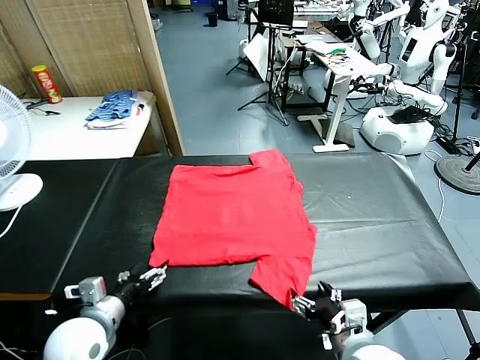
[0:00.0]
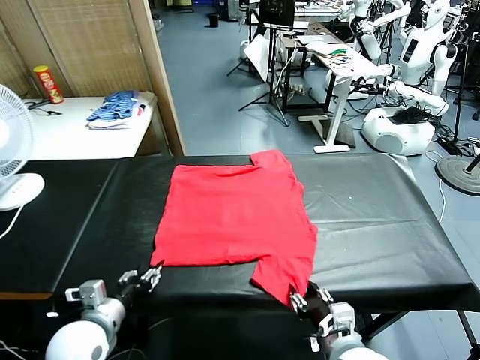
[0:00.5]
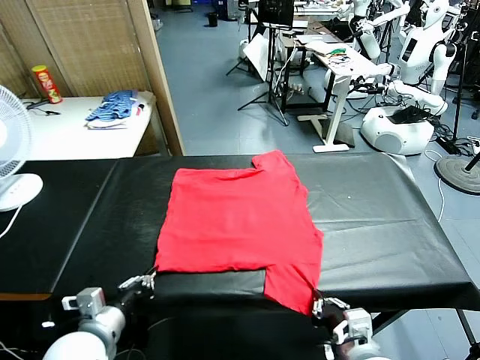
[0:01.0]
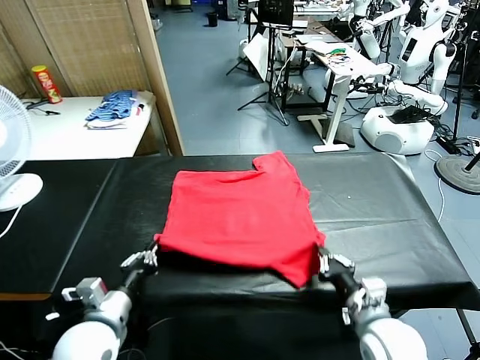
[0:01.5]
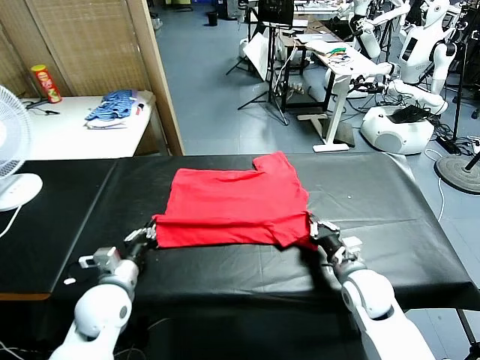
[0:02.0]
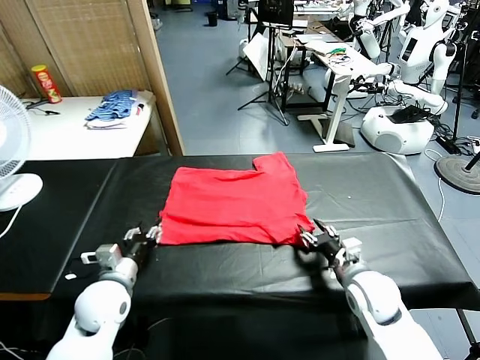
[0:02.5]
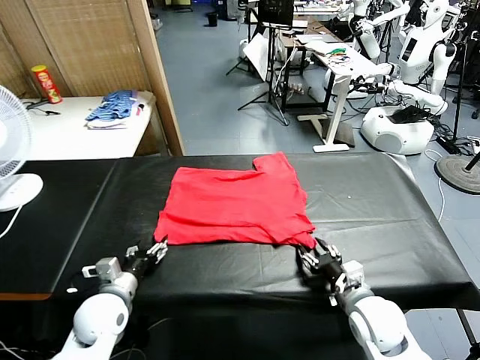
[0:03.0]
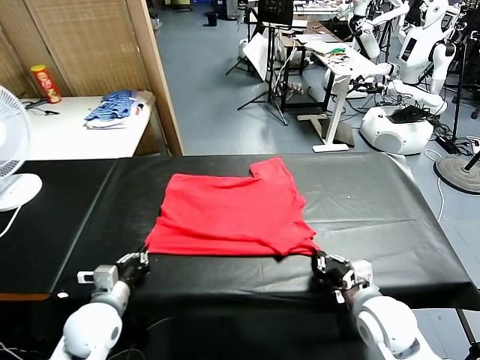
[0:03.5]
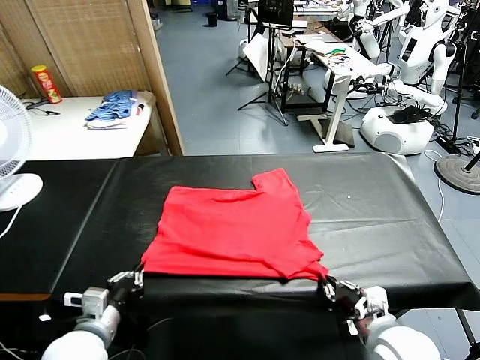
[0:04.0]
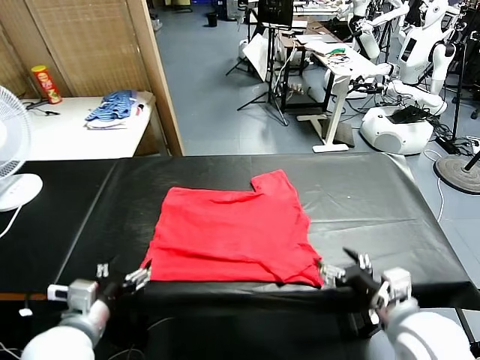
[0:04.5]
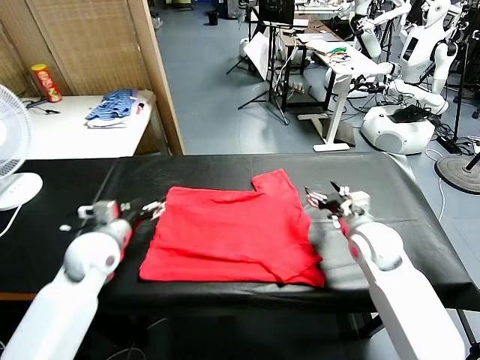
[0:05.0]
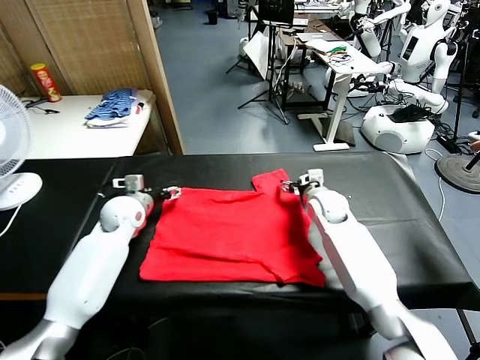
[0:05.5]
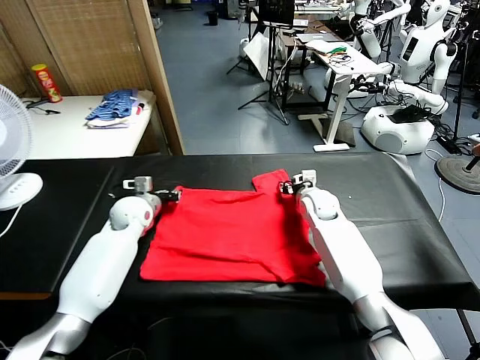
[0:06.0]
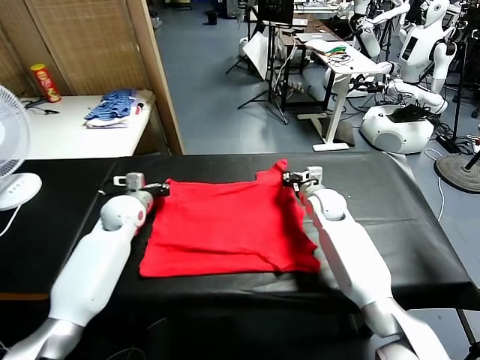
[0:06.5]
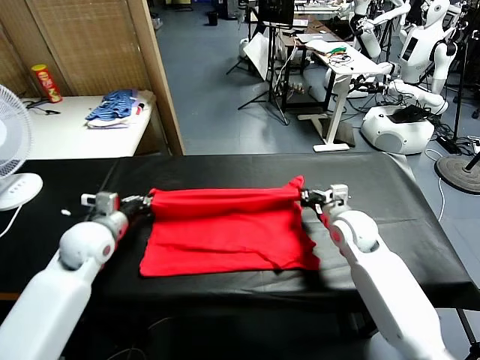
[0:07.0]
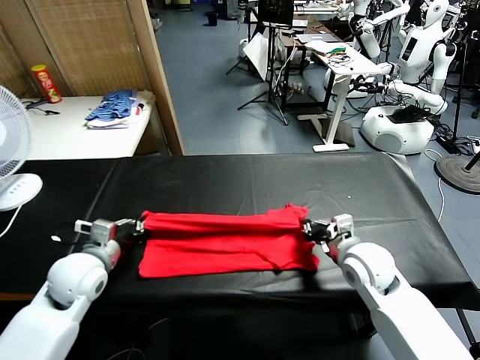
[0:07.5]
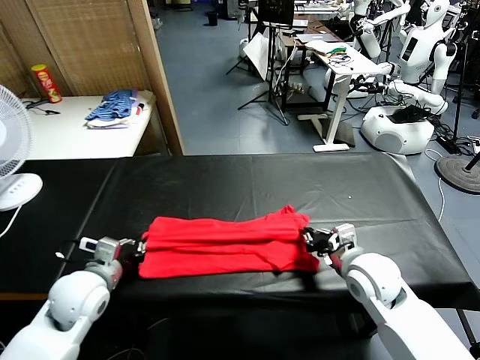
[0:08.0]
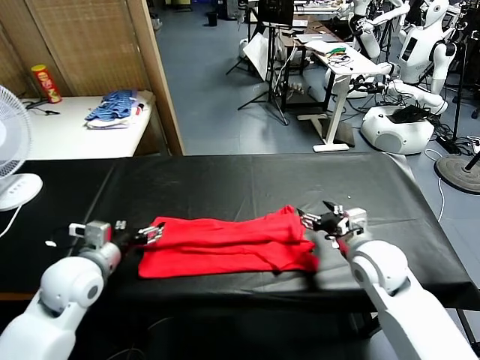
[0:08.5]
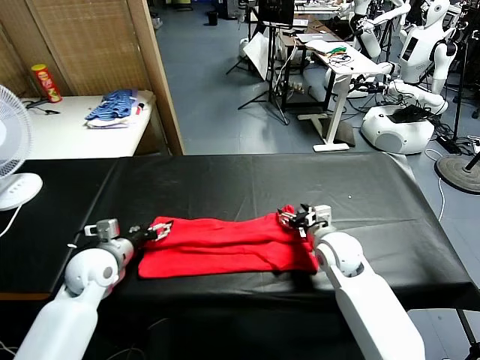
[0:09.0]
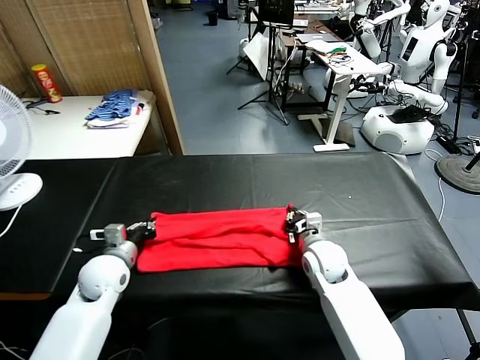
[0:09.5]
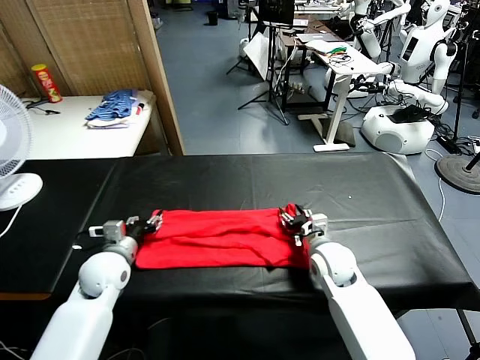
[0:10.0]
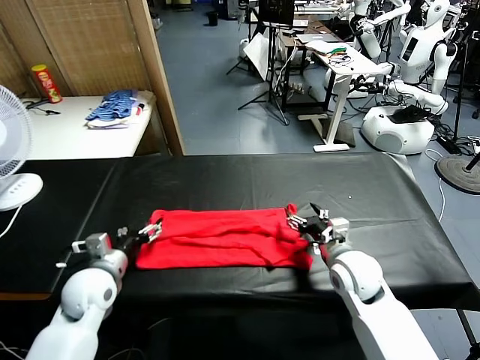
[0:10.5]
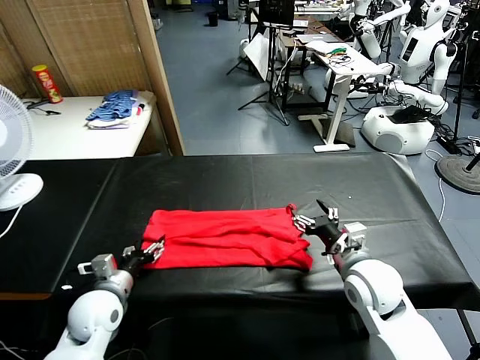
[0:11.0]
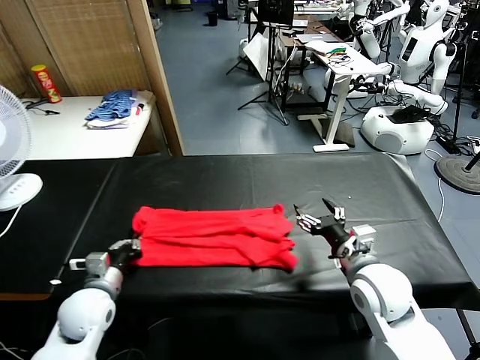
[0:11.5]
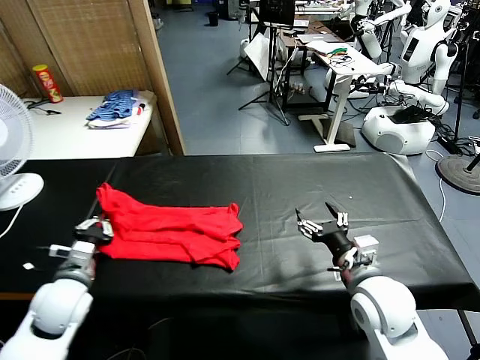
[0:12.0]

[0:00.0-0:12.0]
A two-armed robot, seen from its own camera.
Task of the whole recording: fold and organize the clothes.
Step, 0:00.0 to 0:00.5: use both grippers simultaneously to clamp the lower edge of the clothing fabric.
Step, 0:01.0 to 0:02.5: use both grippers to drag the lower edge of the fabric forward and fold it over the upper edge.
Step, 0:03.0 to 0:04.0: Drag the clothes downward with both gripper.
Step, 0:04.5 to 0:06.0: use both grippers simultaneously to clamp the upper edge of the clothing fabric.
Step, 0:06.5 to 0:08.0: use both grippers to drag the upper edge of the fabric backward and fold it over the lower edge.
Step, 0:08.5 to 0:11.0: use the left gripper to clamp the left edge of the fabric.
0:02.0 to 0:04.0: The left gripper travels backward by roughly 10 cm, and opens and closes again; the right gripper moves backward and upward, about 20 cm, and opens its fingers.
0:04.0 to 0:06.0: Both grippers move forward, roughly 35 cm. The right gripper opens, then closes once more, while the left gripper opens and closes again.
0:06.0 to 0:08.0: The grippers both shift backward by about 20 cm.
0:08.0 to 0:10.0: The right gripper is displaced downward and forward by approximately 10 cm, and opens. The left gripper heads forward, covering about 5 cm, and opens up.
0:10.0 to 0:12.0: The right gripper travels backward and upward by about 15 cm; the left gripper shifts approximately 10 cm backward, and closes.

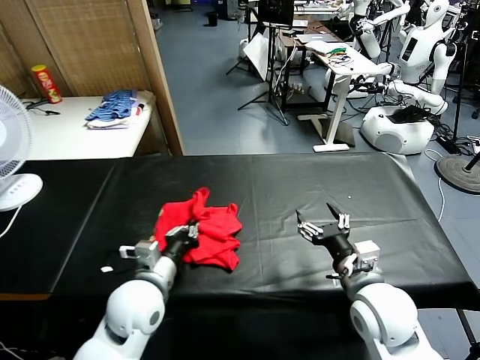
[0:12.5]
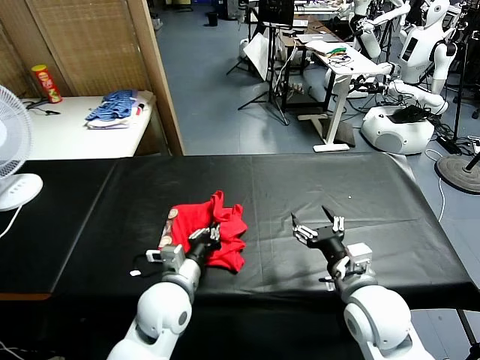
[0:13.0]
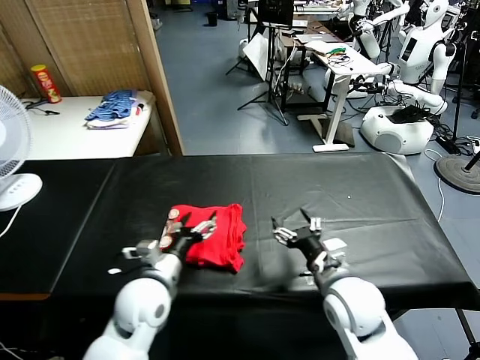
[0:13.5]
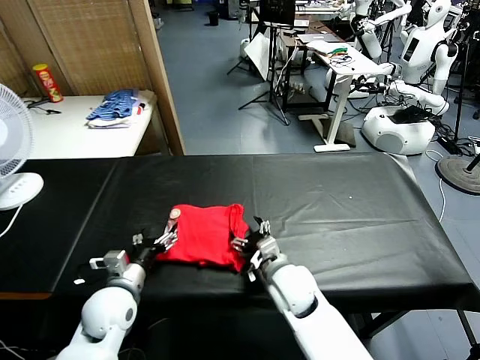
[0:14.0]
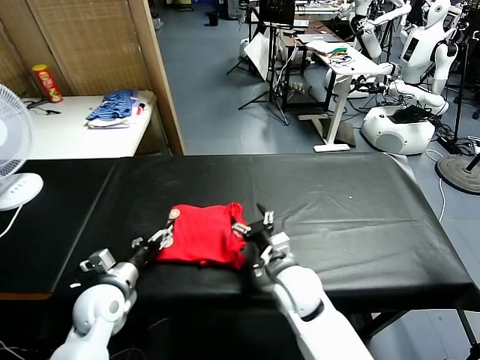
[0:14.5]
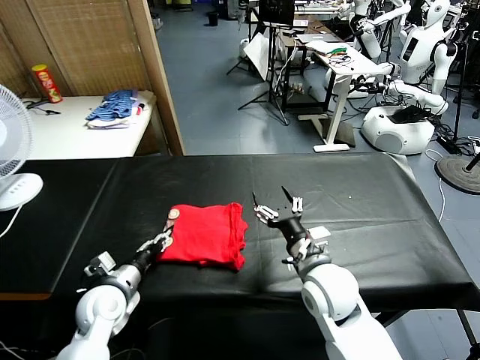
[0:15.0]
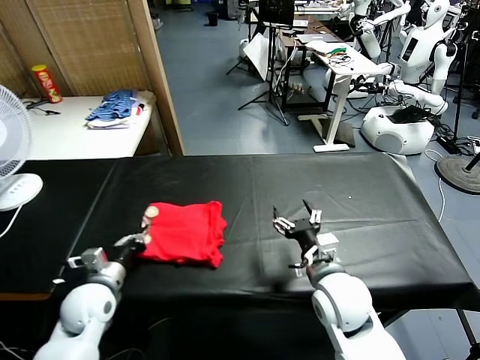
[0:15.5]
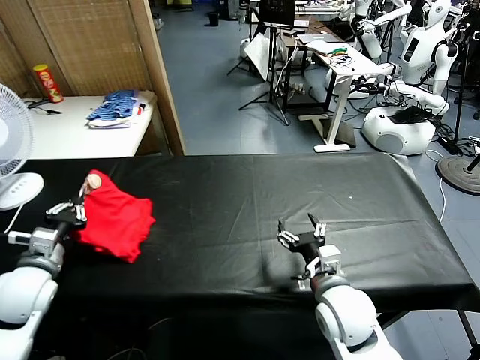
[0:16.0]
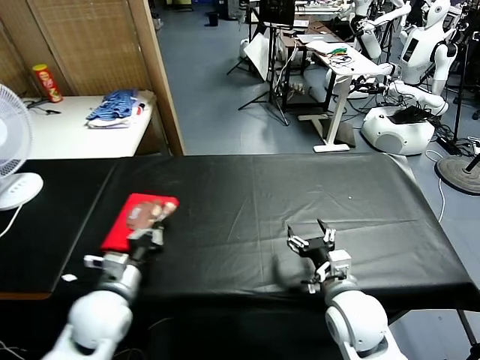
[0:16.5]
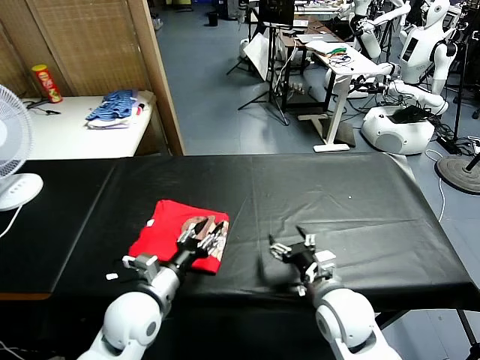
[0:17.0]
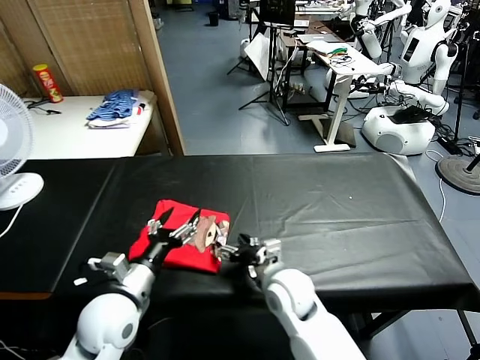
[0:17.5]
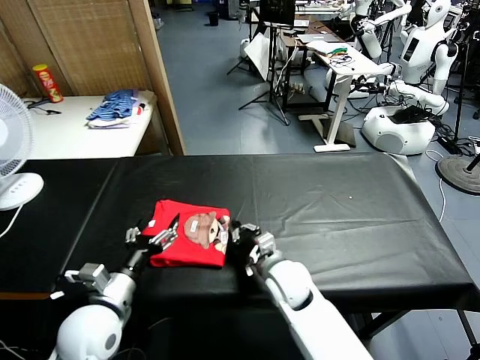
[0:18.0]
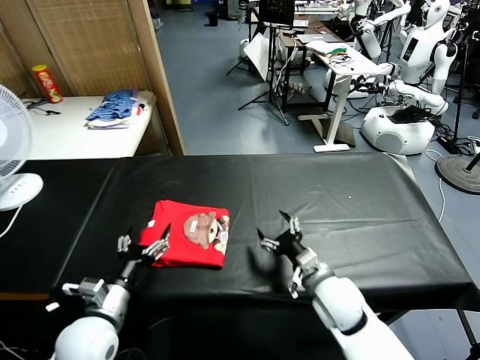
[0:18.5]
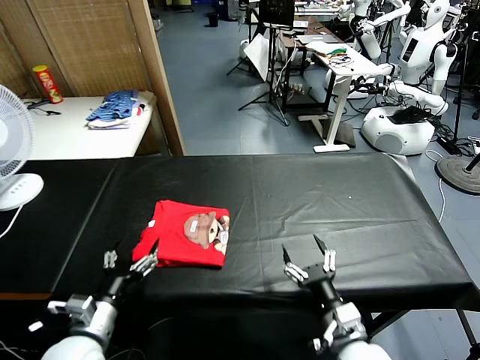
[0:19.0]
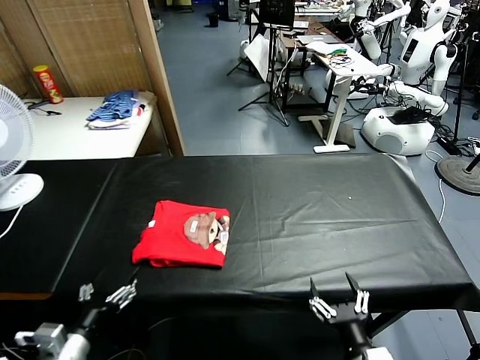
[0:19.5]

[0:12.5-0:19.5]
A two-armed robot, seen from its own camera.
Task of the whole recording: fold and organize the clothes.
Step, 0:13.5 to 0:17.0: Flip the folded clothes over with left gripper.
Step, 0:17.5 to 0:18.0: Drag the clothes to the center of the table.
0:12.5 to 0:14.5: The left gripper goes roughly 10 cm to the left and downward, and opens up, while the right gripper goes about 15 cm to the left, downward and forward.
0:14.5 to 0:16.0: The left gripper goes roughly 15 cm to the left and upward, and closes up. The right gripper moves to the right and backward, approximately 10 cm.
0:16.0 to 0:17.5: The right gripper goes about 10 cm to the left and forward, while the left gripper goes some 15 cm to the right, and opens its fingers.
0:17.5 to 0:19.5: The left gripper travels backward and to the left by approximately 15 cm. The right gripper is displaced backward and to the right by some 25 cm, and closes, then reopens.

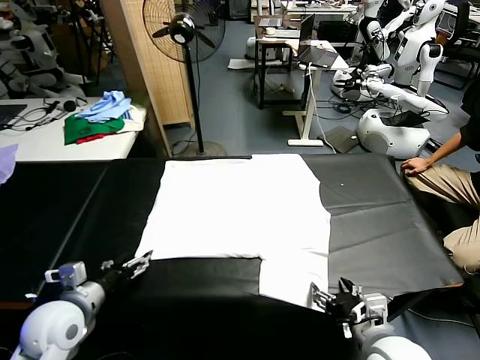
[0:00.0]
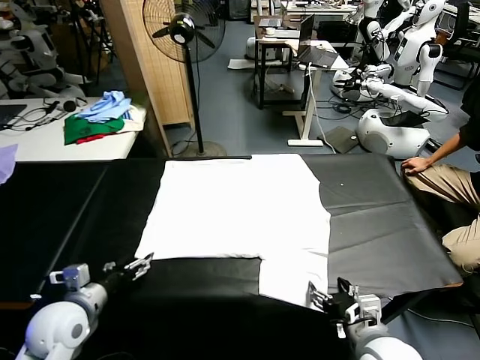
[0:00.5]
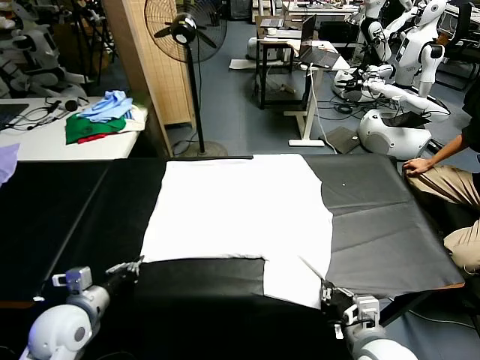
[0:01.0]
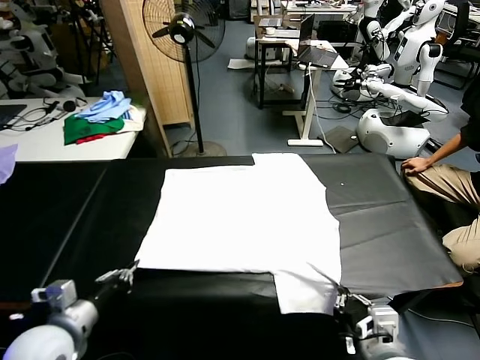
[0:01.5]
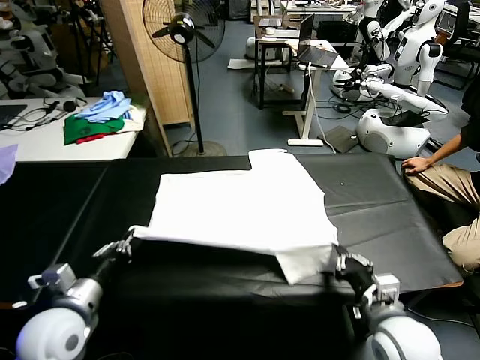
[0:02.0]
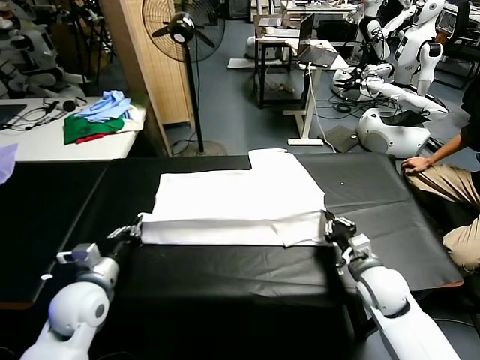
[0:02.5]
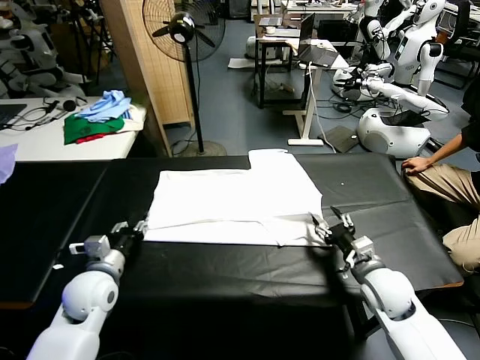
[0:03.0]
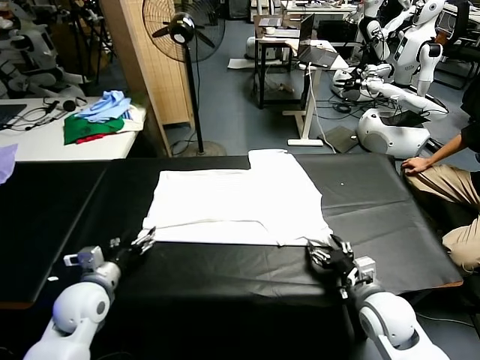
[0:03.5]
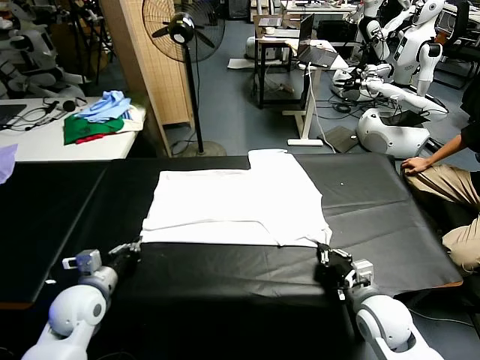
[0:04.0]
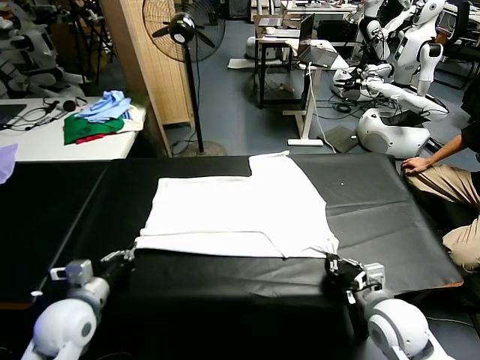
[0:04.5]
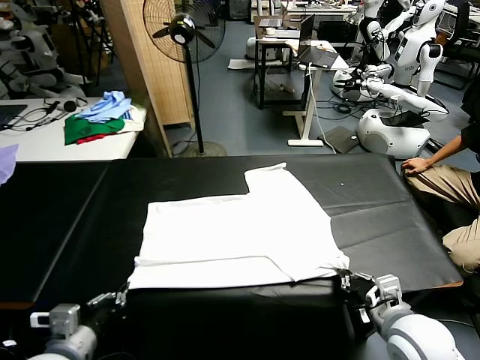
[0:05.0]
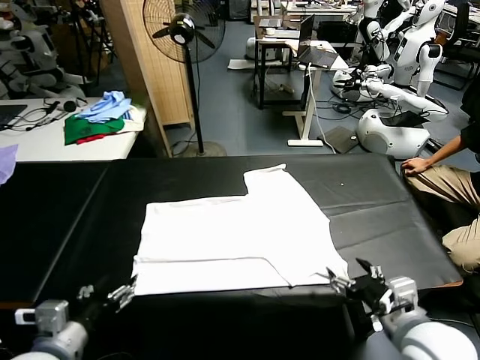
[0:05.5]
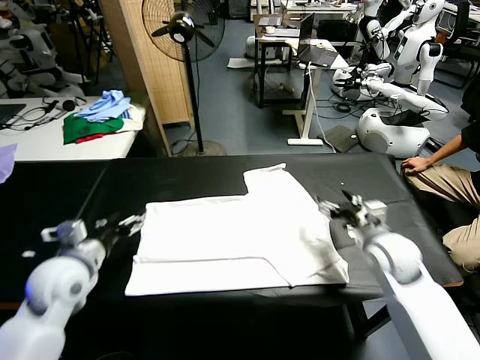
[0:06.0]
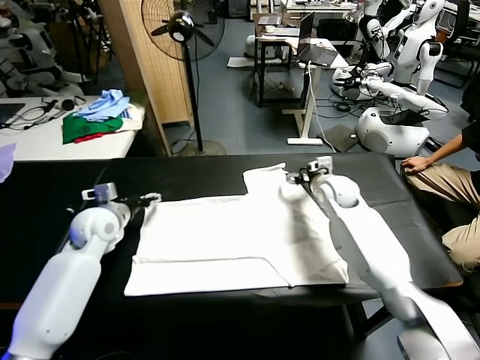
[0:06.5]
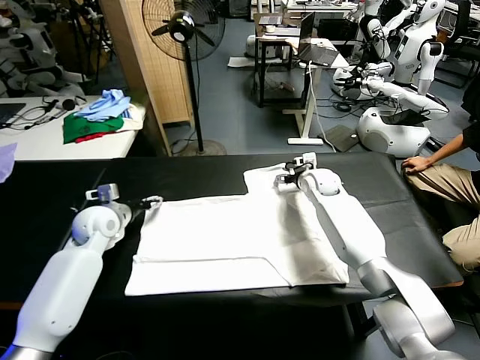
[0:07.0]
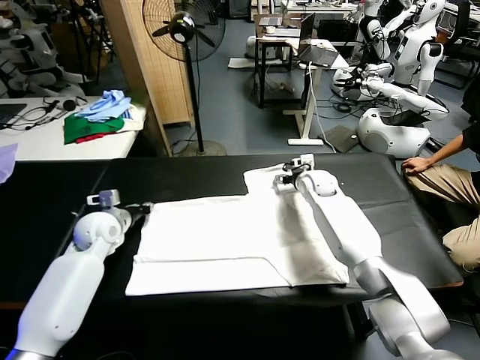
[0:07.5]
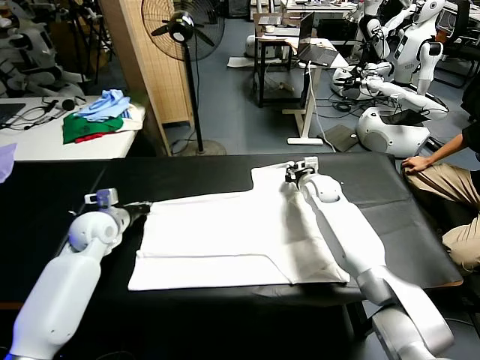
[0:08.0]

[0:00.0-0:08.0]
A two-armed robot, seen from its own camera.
Task of the whole recording: fold and organize the clothes.
Step, 0:00.0 to 0:01.0: use both grippers simultaneously to clamp the lower edge of the clothing fabric.
Step, 0:01.5 to 0:02.5: use both grippers to drag the lower edge of the fabric forward and fold it over the upper edge.
Step, 0:03.0 to 0:05.0: Drag the clothes downward with both gripper.
Step, 0:05.5 to 0:07.5: use both grippers simultaneously to clamp the upper edge of the clothing fabric.
0:02.0 to 0:04.0: The right gripper opens, then closes once more; the left gripper travels downward by some 5 cm, and opens, then closes once more.
0:04.0 to 0:06.0: The right gripper is displaced forward by approximately 25 cm, and opens; the left gripper travels upward and forward by approximately 10 cm, and opens its fingers.
0:06.0 to 0:08.0: The two grippers go some 5 cm forward. The right gripper closes. The left gripper closes up.
